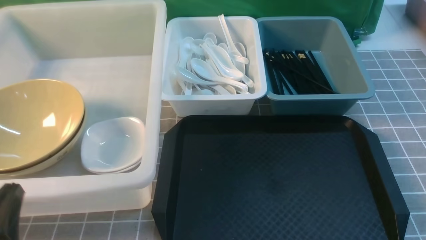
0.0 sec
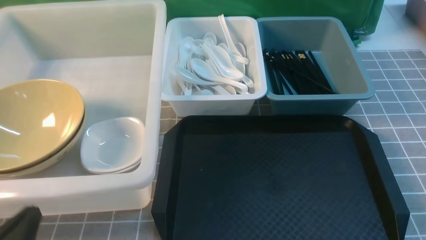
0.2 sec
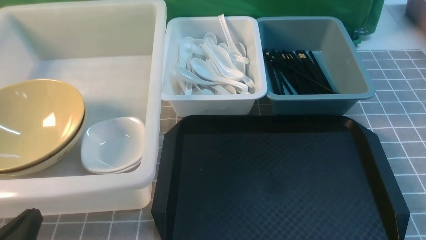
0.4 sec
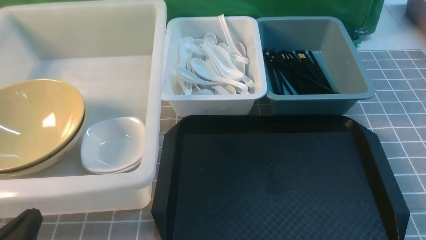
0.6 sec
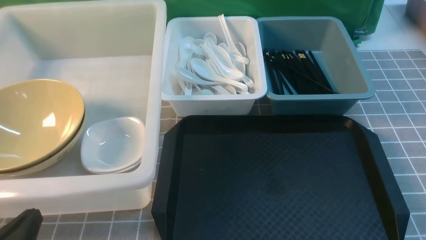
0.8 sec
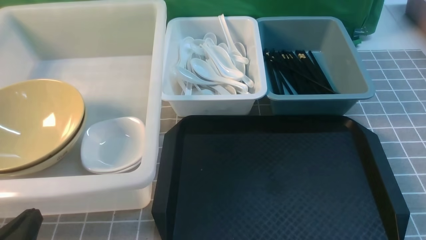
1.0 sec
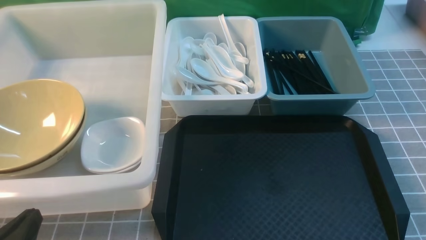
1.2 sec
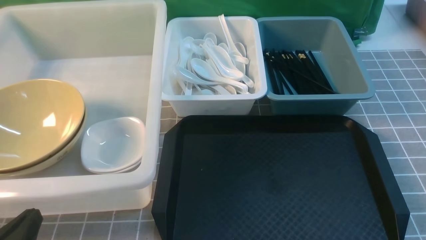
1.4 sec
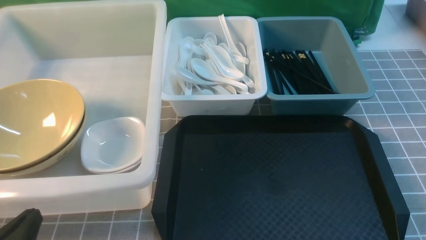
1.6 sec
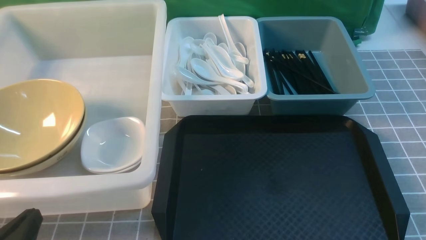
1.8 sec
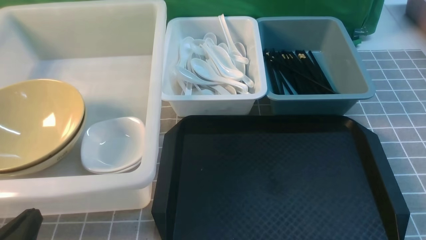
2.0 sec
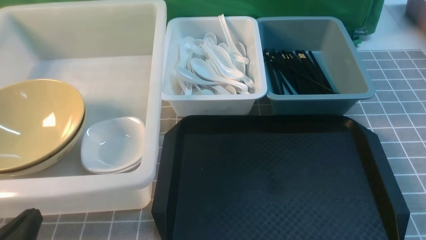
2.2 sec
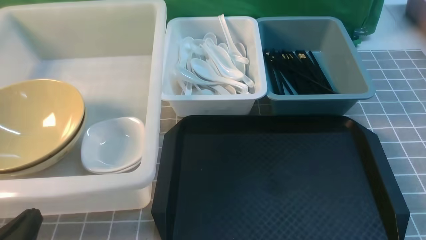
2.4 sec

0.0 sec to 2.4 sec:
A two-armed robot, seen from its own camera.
Task of the whole recording: on grey table put chopsticks spoon bowls plates into blue grey white boxes.
0.0 sec to 1.2 sec: The grippers stay close to where they were, moving slightly.
1.2 sec to 2.4 sec: Both grippers stay about where they are.
